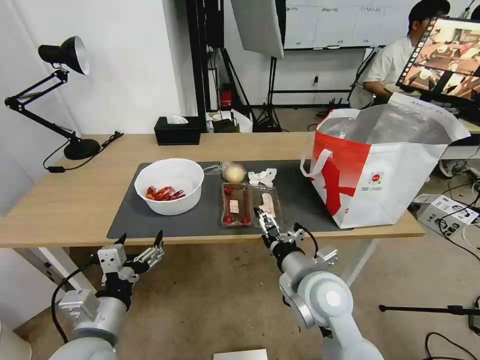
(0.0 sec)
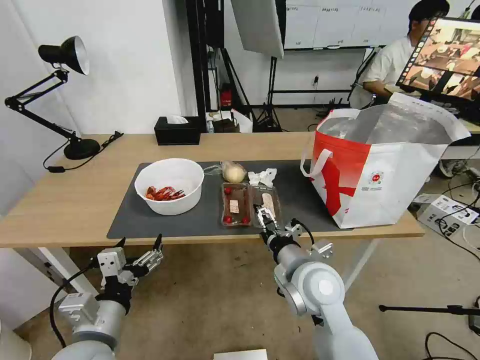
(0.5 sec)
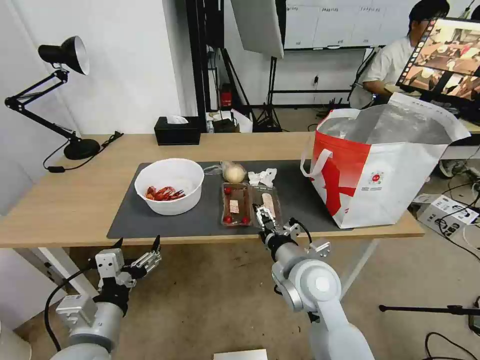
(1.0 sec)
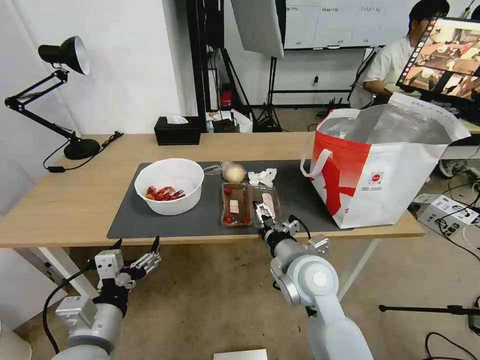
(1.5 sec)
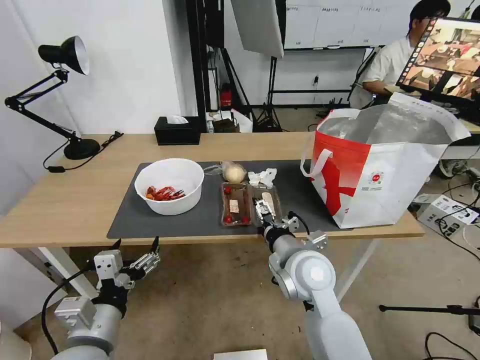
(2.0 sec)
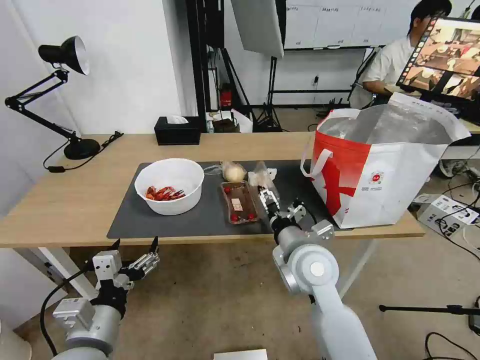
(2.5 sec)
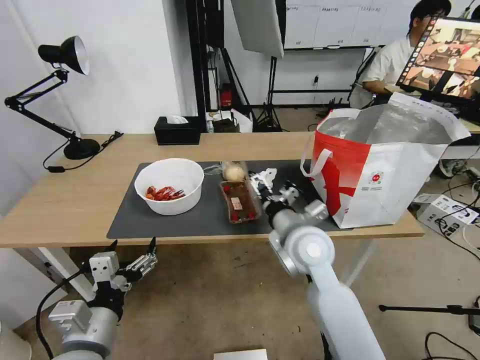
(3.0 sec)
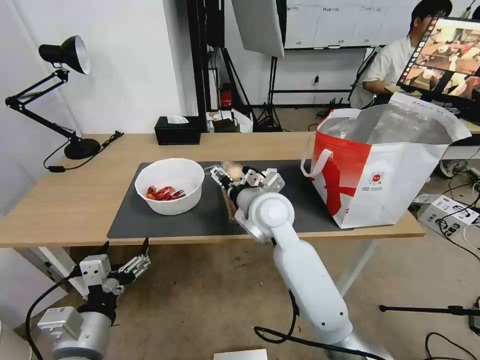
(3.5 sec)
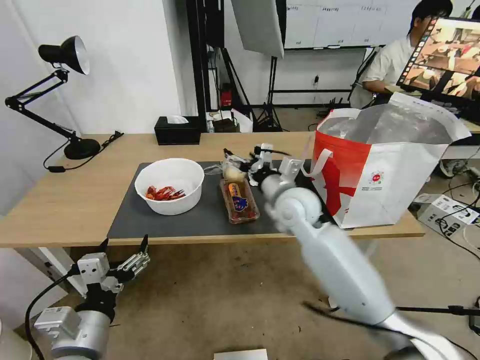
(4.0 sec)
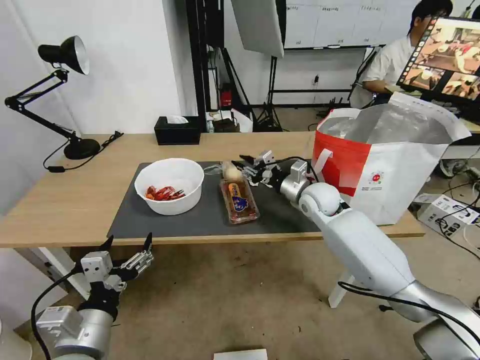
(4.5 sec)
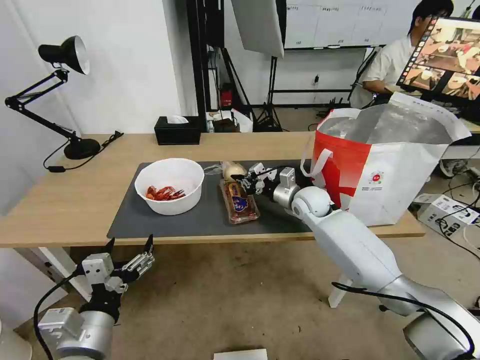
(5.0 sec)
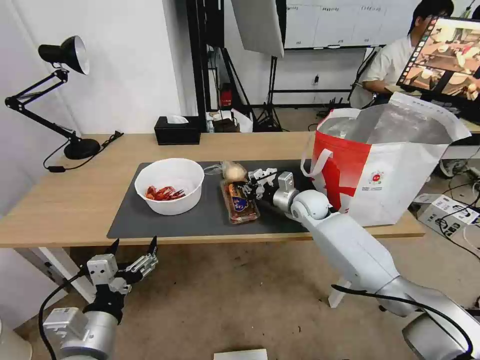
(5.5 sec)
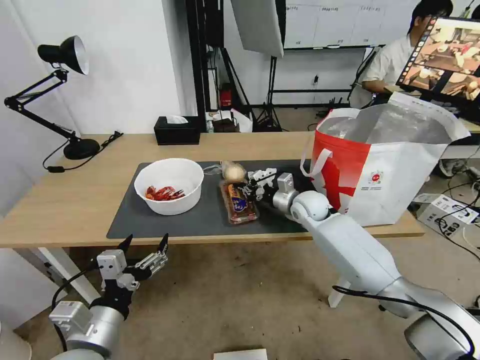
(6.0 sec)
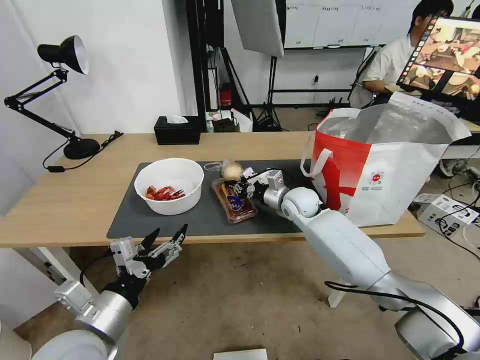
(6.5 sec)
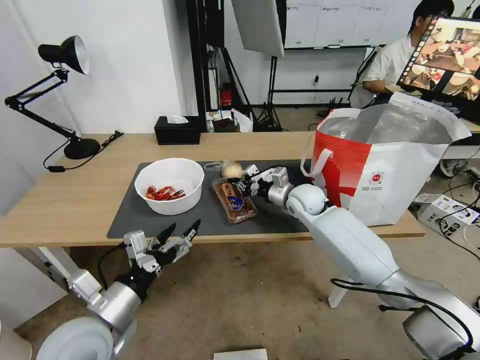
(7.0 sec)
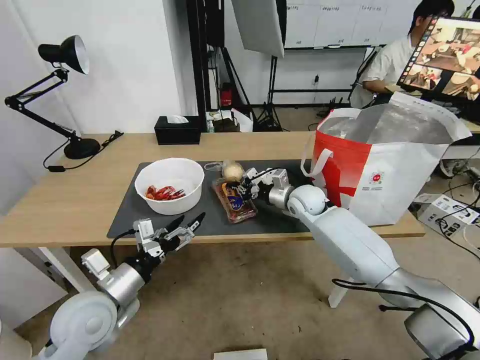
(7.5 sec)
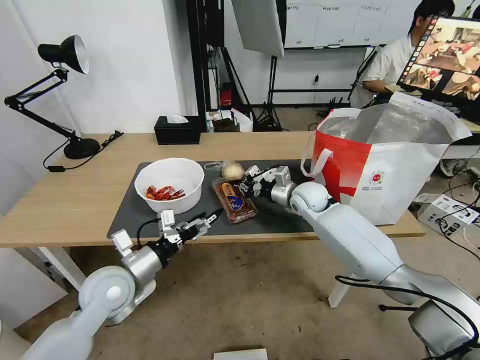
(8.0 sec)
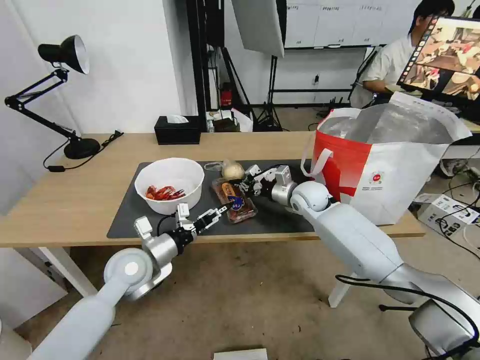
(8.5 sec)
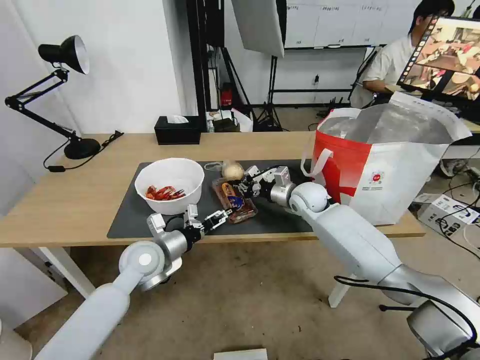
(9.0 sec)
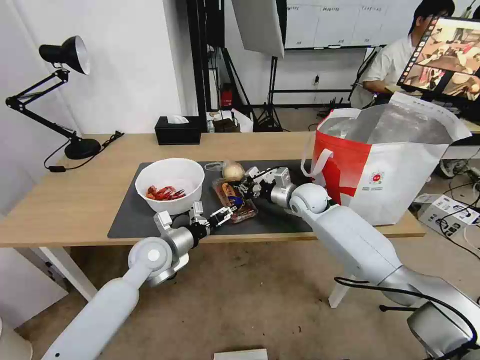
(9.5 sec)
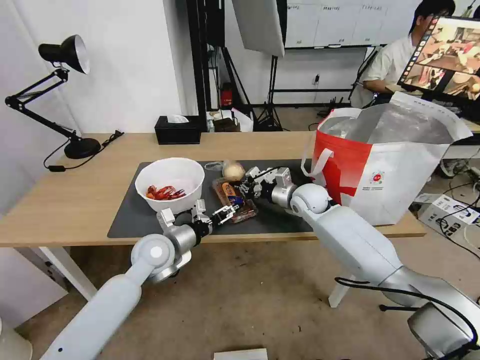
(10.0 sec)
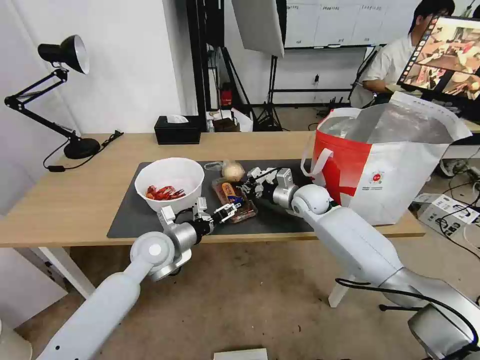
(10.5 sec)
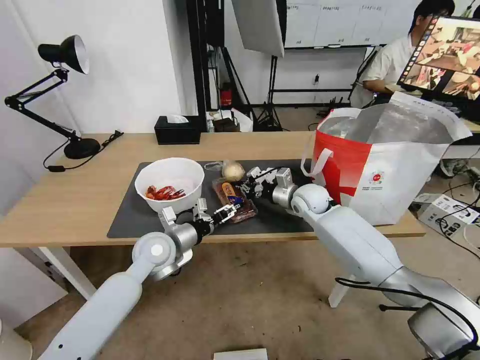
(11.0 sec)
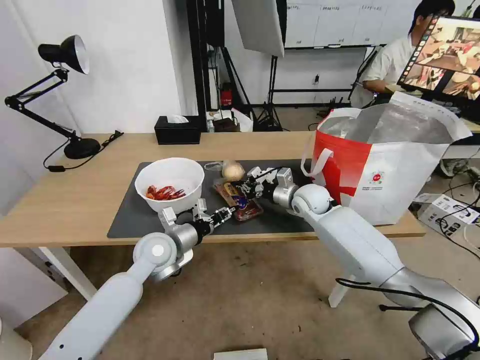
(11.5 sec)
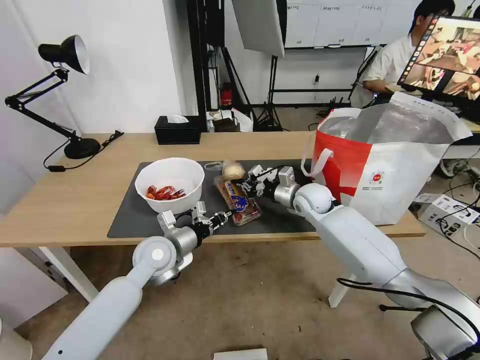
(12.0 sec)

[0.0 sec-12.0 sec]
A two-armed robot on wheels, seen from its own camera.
Task of the whole recording: Pick up the trash from the table and place it into the takeout bag.
0.0 sec to 2.0 sec: The grippers make only small movements.
2.0 sec to 4.0 sec: The right gripper heads forward, covering approximately 15 cm.
4.0 sec to 6.0 sec: The right gripper goes some 15 cm downward, forward and to the right, and closes.
6.0 sec to 8.0 sec: The left gripper heads forward, covering approximately 15 cm.
8.0 sec to 10.0 sec: The left gripper shifts roughly 10 cm forward and to the right.
10.0 sec to 12.0 sec: The left gripper closes up.

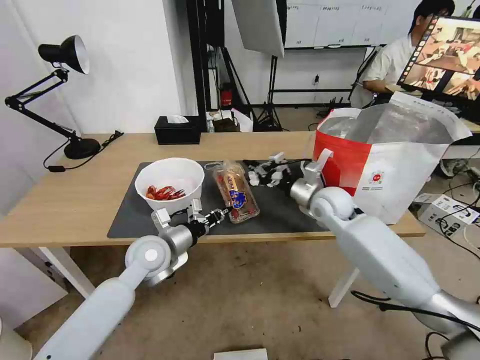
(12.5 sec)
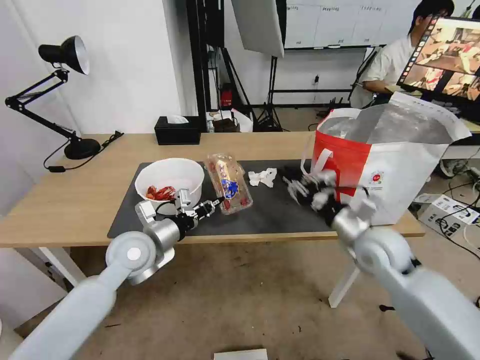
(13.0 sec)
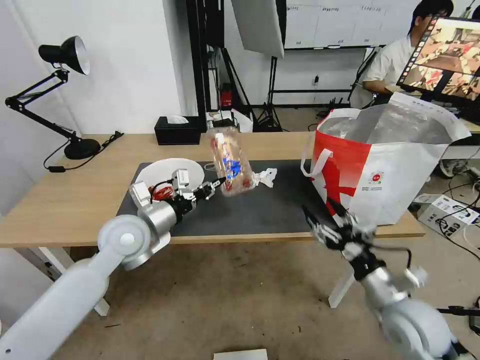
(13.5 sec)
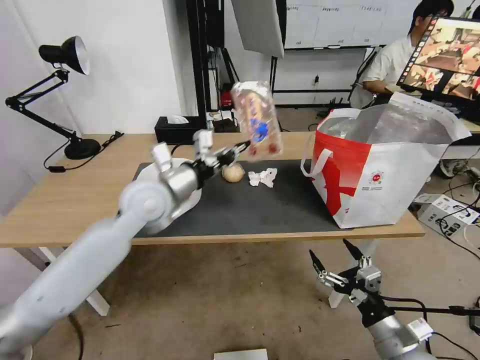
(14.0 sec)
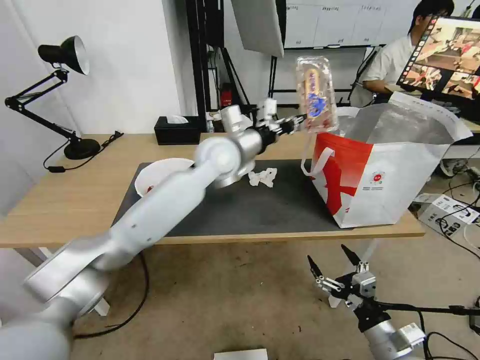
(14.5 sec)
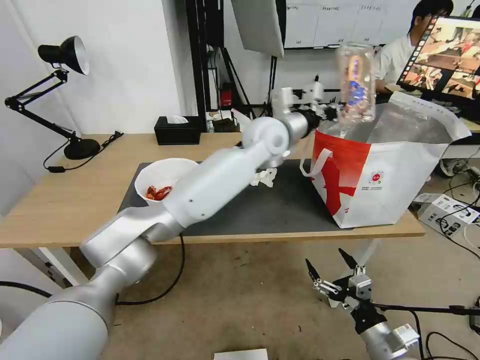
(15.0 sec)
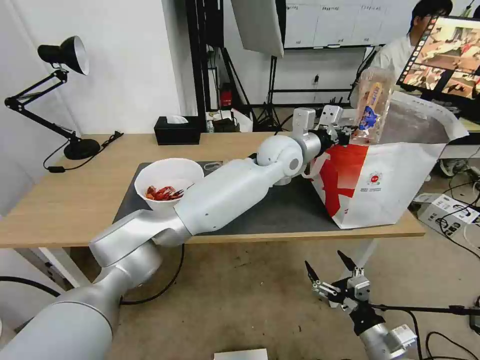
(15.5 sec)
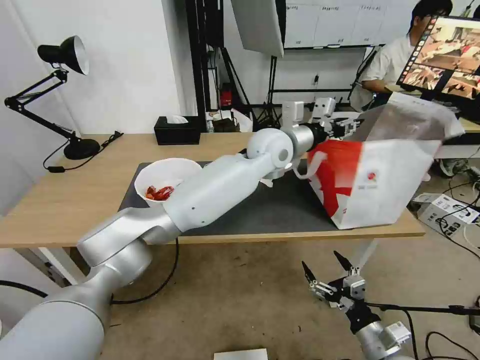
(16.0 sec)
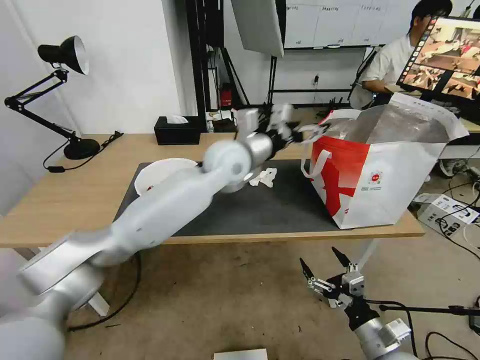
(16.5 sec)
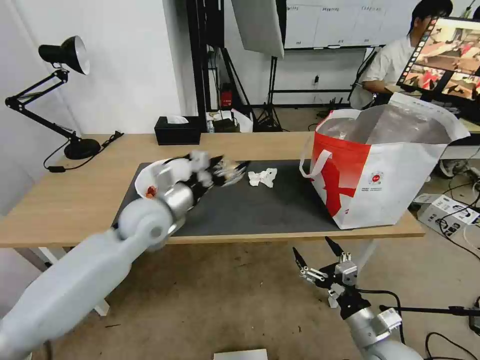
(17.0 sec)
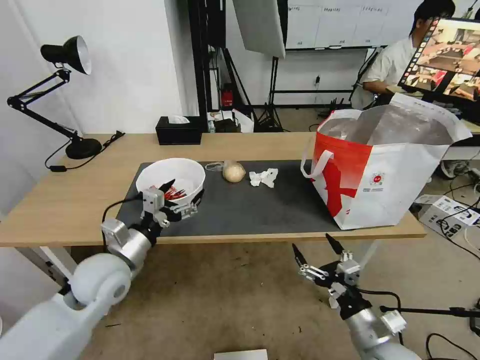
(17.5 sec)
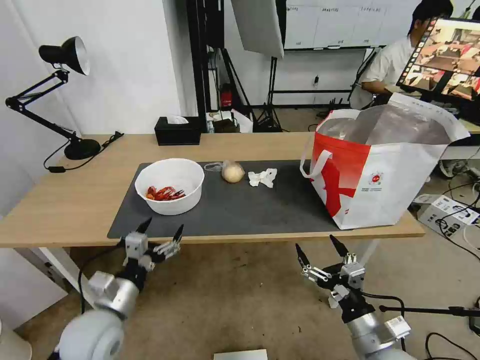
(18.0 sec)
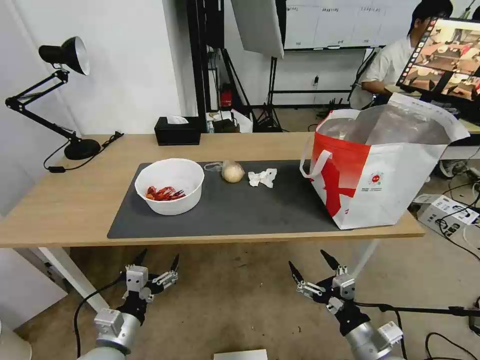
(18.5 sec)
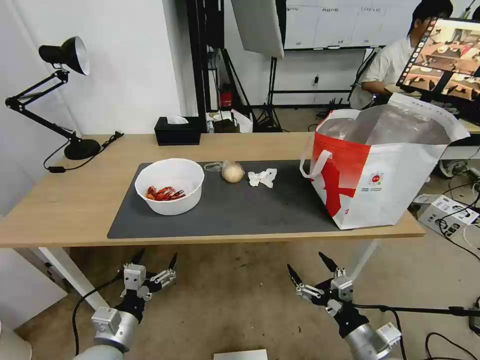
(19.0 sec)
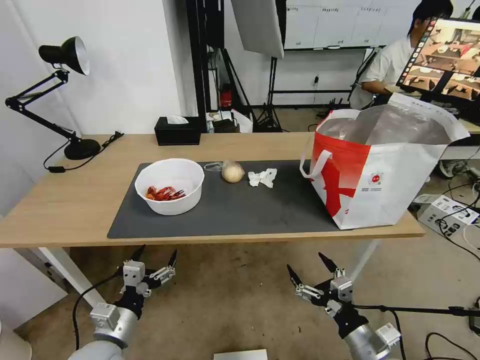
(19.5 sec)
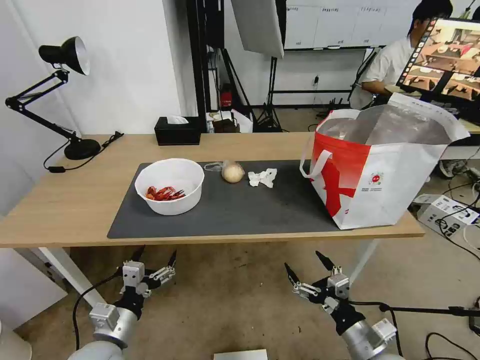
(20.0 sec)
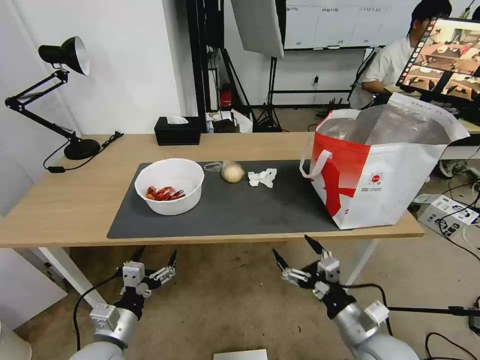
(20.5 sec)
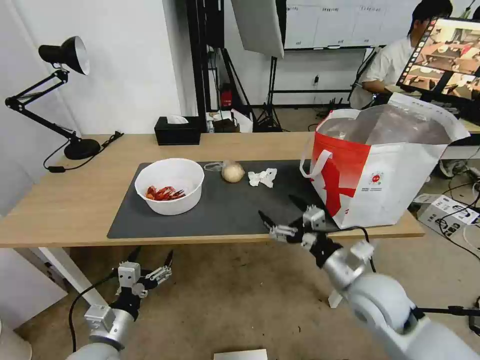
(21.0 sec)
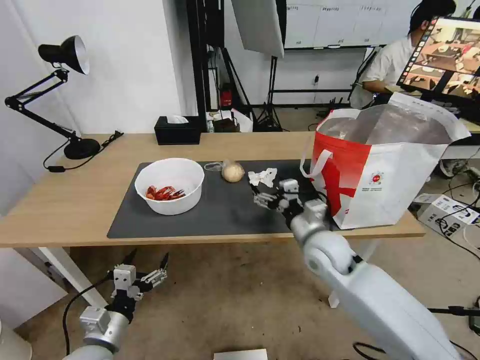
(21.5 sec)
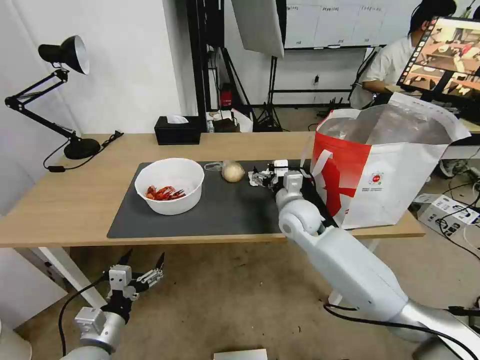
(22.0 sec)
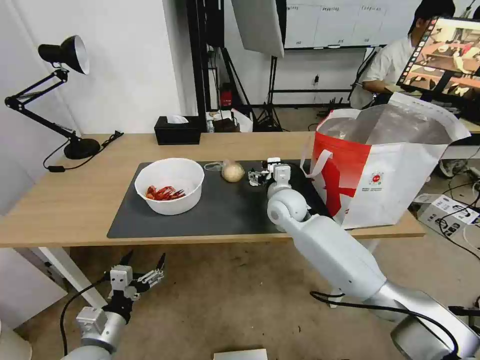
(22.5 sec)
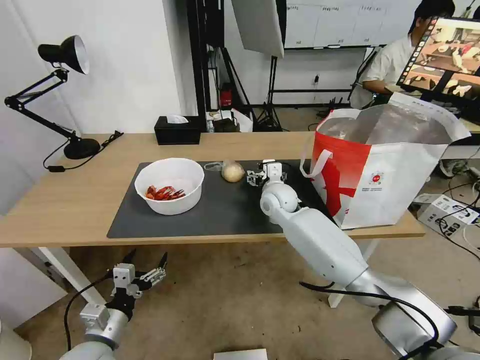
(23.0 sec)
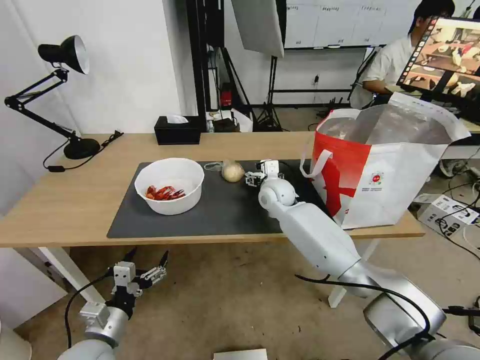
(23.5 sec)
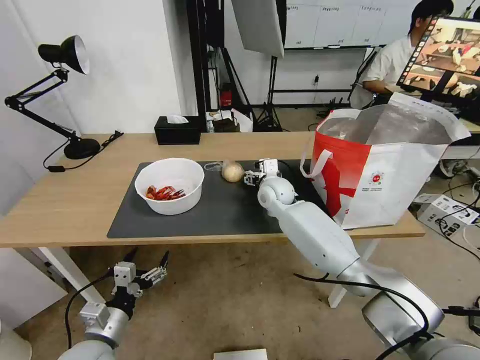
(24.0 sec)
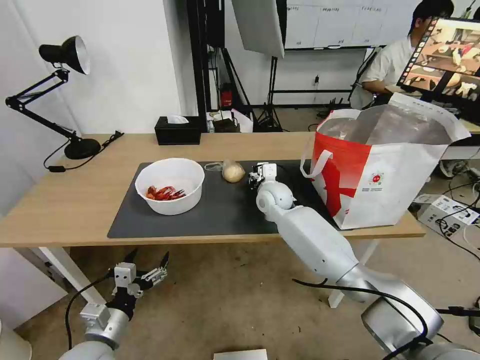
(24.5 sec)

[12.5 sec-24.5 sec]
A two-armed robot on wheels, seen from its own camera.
Task of the whole recording: Pick up the trash from the table and place it into the takeout bag.
12.5 sec to 14.5 sec: The left gripper goes approximately 25 cm upward, to the right and forward. Meanwhile the right gripper shifts approximately 35 cm backward, and opens.
14.5 sec to 16.5 sec: The left gripper moves roughly 15 cm to the right and comes back, and opens up.
16.5 sec to 18.5 sec: The left gripper shifts about 50 cm backward, downward and to the left.
18.5 sec to 20.5 sec: There are only small adjustments of the grippers.
20.5 sec to 22.5 sec: The right gripper is displaced forward and to the left by about 35 cm.
22.5 sec to 24.5 sec: The right gripper ends up some 5 cm from where it was, and closes its fingers.

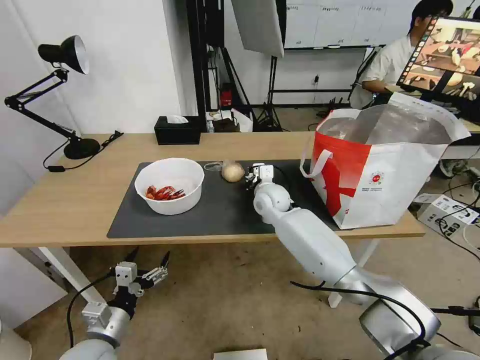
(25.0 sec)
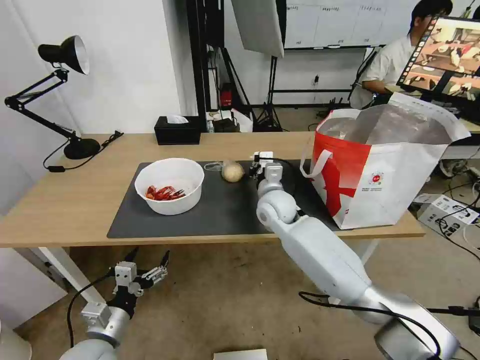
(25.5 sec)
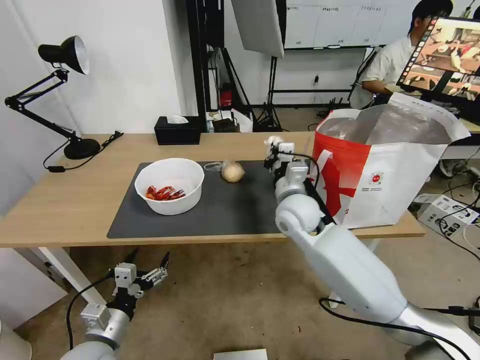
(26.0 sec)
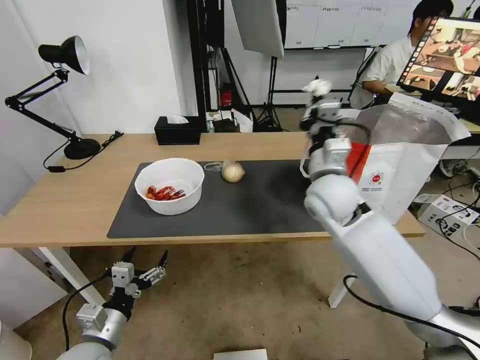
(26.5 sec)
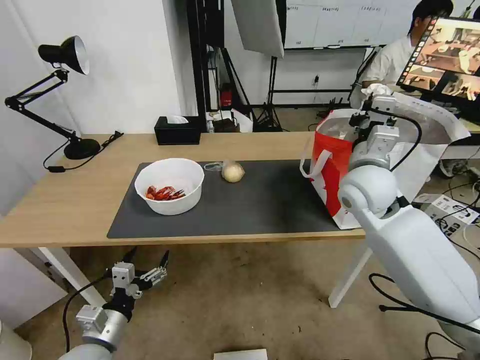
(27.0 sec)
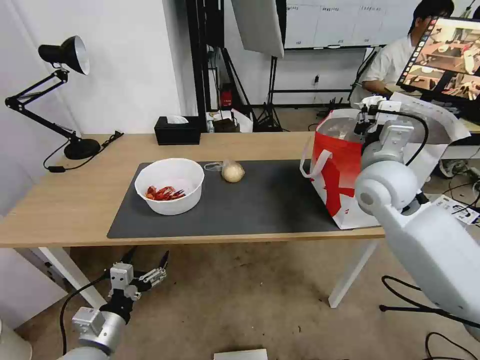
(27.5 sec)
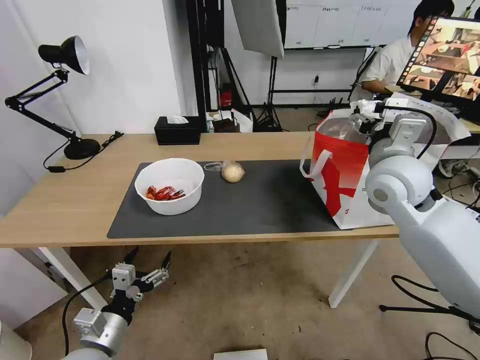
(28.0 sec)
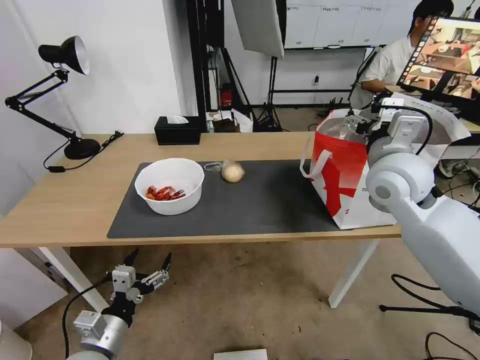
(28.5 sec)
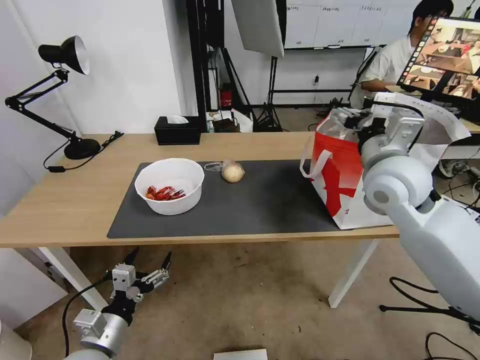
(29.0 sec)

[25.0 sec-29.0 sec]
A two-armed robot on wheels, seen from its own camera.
Task of the whole recording: Pick up the trash from the table and place it into the takeout bag.
25.0 sec to 27.0 sec: The right gripper is displaced to the right, upward and backward by about 25 cm.
27.0 sec to 29.0 sec: The right gripper ends up about 5 cm from where it was, and opens up.
